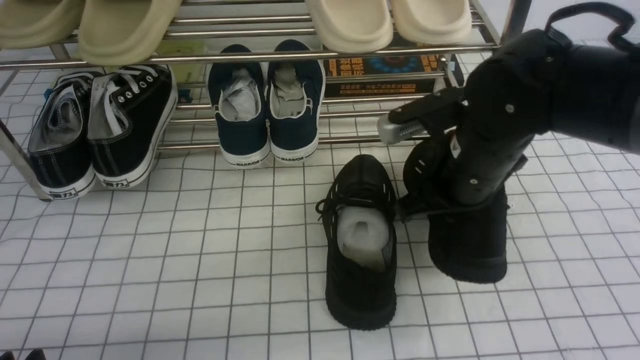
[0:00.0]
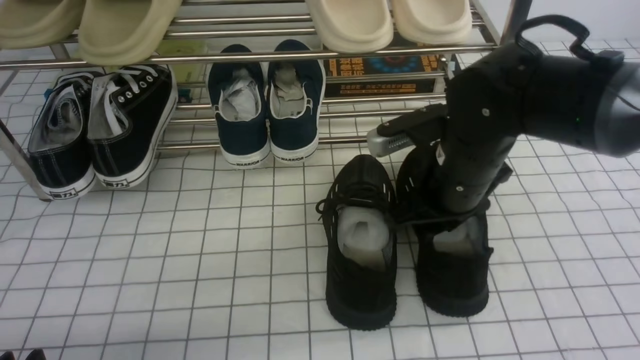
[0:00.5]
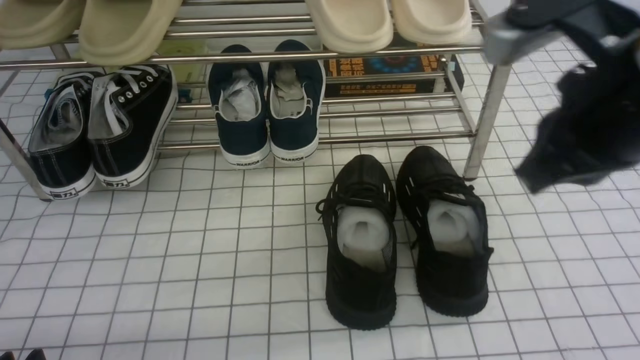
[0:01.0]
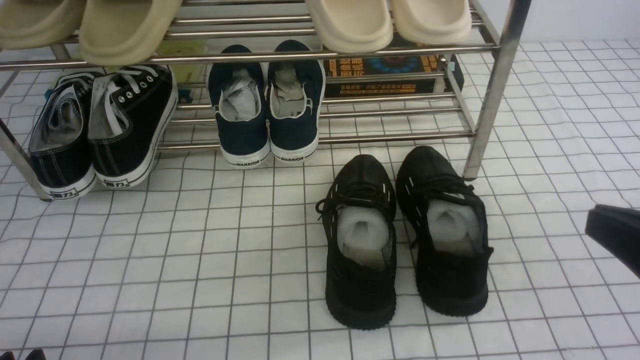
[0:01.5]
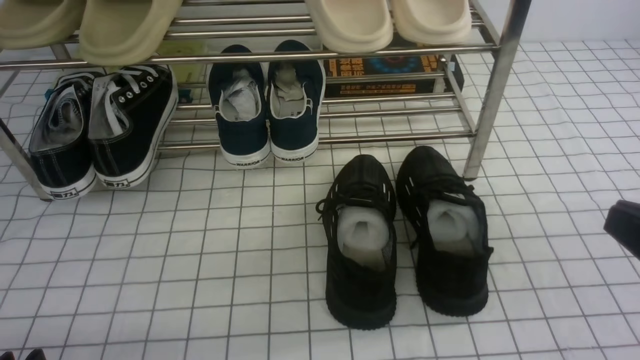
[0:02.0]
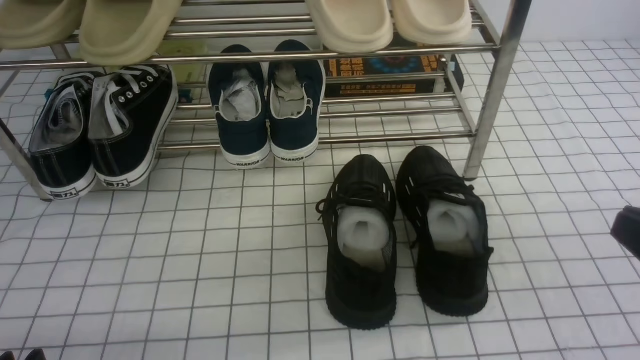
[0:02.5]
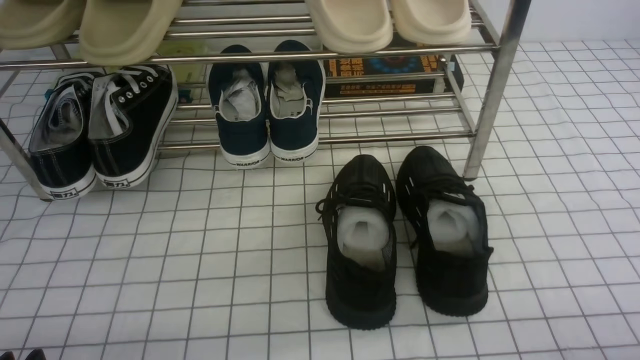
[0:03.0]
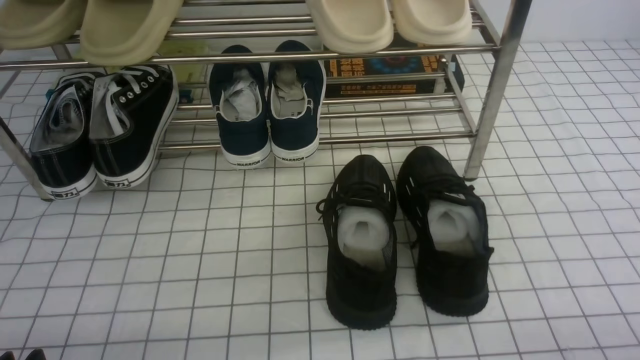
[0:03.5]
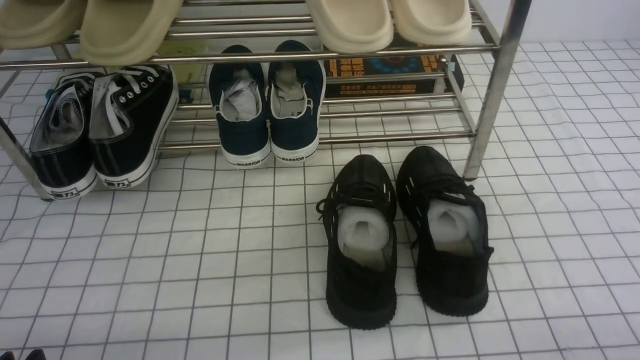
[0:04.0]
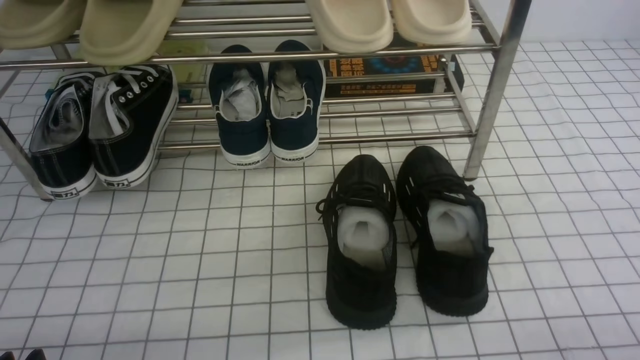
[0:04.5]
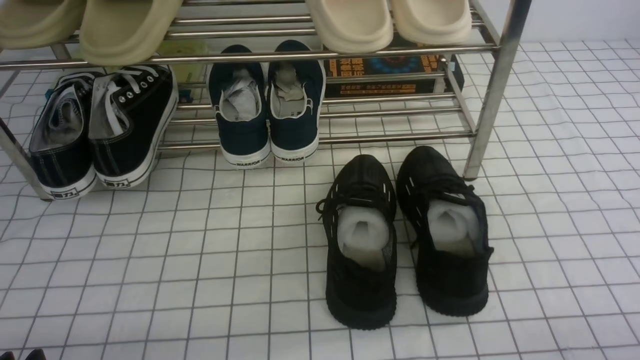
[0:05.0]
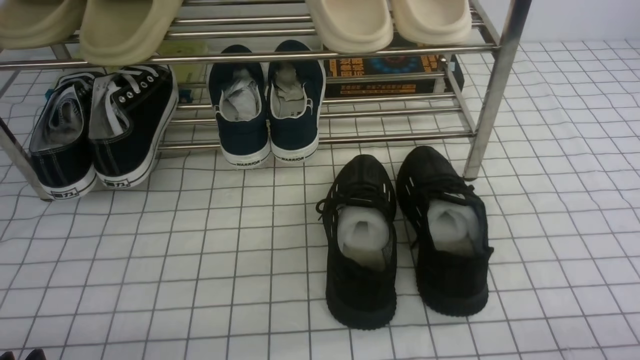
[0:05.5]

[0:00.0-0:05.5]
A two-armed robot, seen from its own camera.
0:00.0 to 0:02.0: The right gripper moves backward and to the right, approximately 25 cm, and opens and closes again.
0:02.0 to 0:03.5: The right gripper heads downward and to the right, covering some 15 cm.
0:03.5 to 0:05.5: Both grippers stay put.
